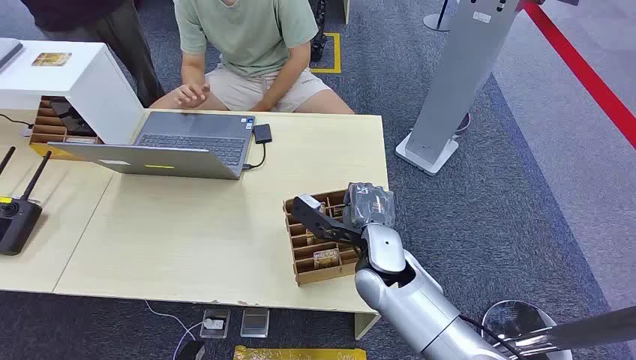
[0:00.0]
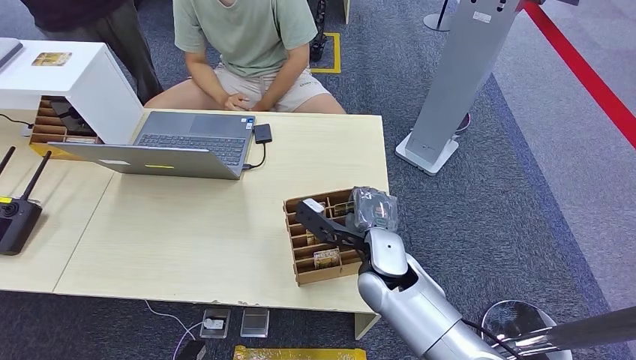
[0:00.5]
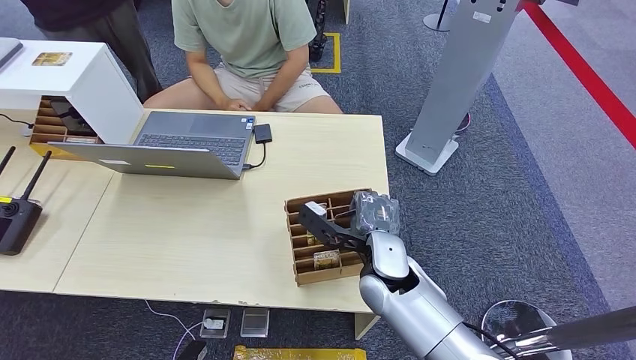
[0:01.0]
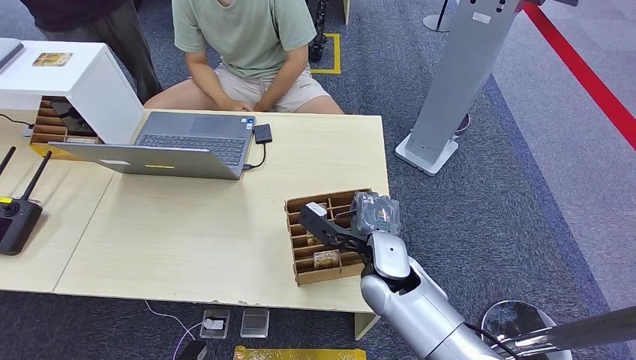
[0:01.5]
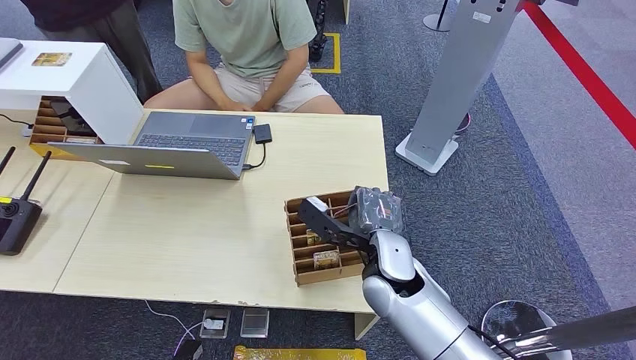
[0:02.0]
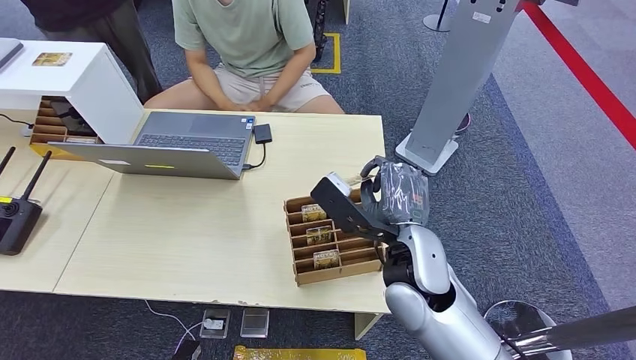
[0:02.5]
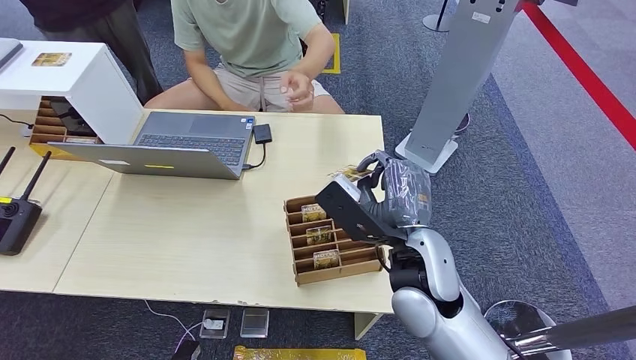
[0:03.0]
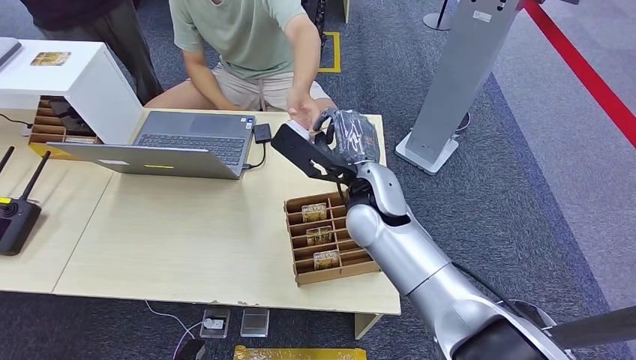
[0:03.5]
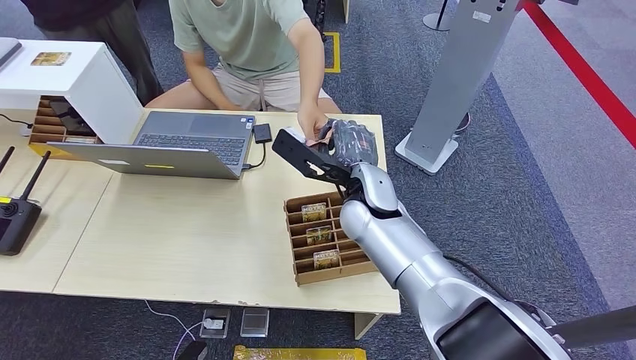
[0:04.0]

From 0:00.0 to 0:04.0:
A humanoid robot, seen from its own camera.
Step, from 0:00.0 to 0:02.0: Pick up the key card from the card box.
Step, from 0:03.5 to 0:04.0: Hand the key card to the target.
From 0:02.0 to 0:04.0: The right hand heads forward and upward, covering approximately 10 cm.
